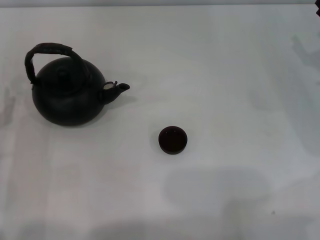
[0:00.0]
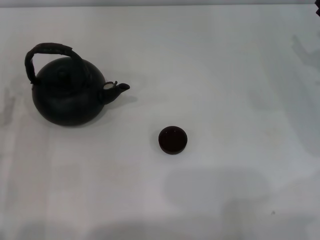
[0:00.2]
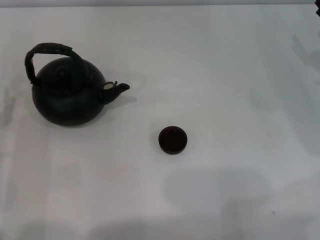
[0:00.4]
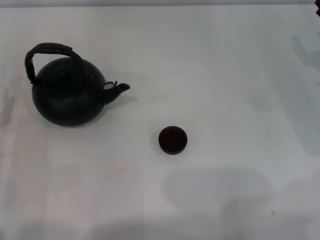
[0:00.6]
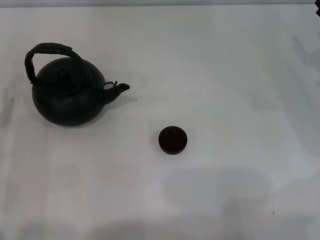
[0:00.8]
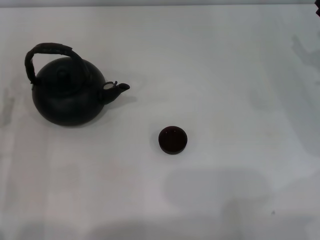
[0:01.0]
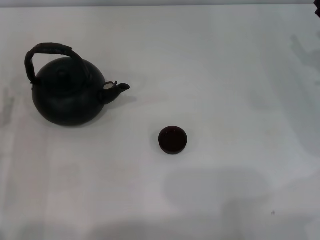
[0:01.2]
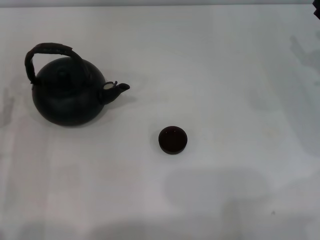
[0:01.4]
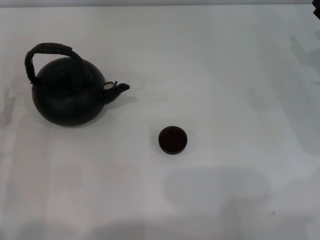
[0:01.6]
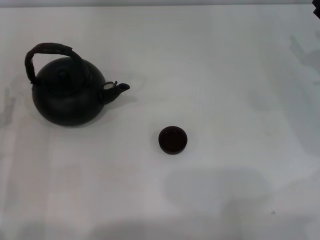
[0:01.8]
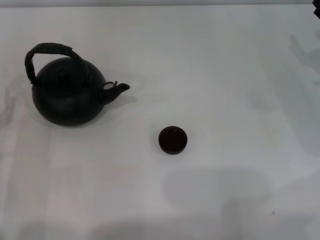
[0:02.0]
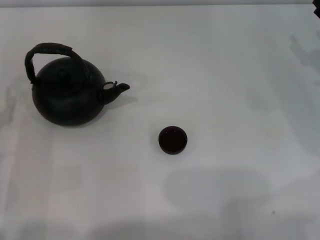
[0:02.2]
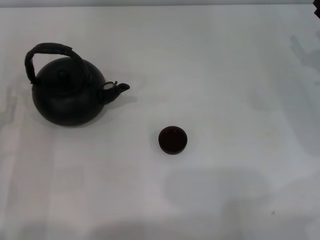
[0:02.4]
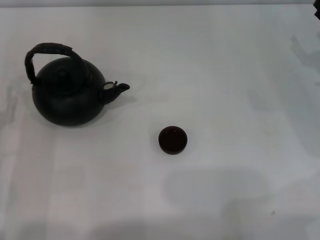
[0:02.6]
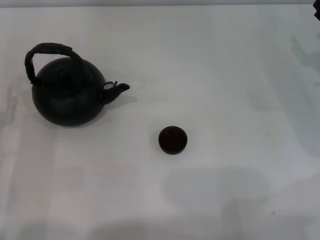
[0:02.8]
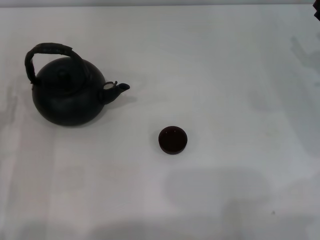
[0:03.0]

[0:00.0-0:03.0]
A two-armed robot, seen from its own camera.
Task of the whole recording: Grasp the handle of the teapot with one hand and pour tea into the teacup.
0:00.0 to 0:03.0: Neither gripper changes place.
